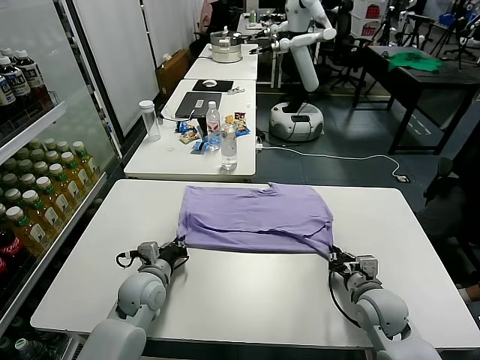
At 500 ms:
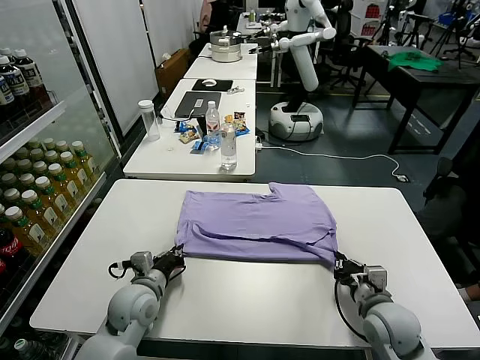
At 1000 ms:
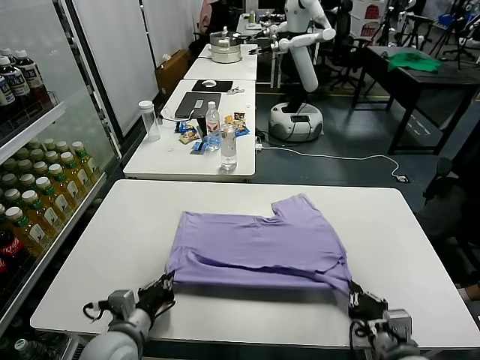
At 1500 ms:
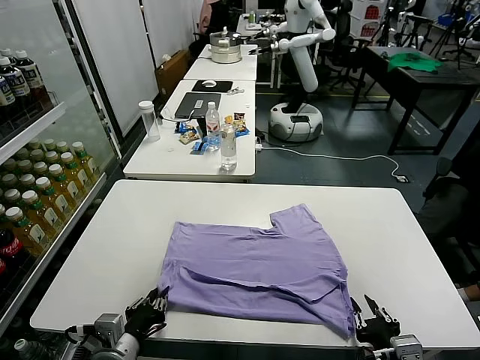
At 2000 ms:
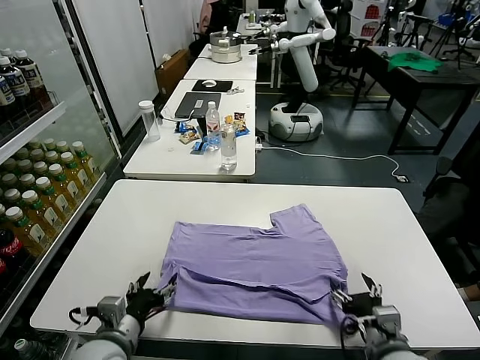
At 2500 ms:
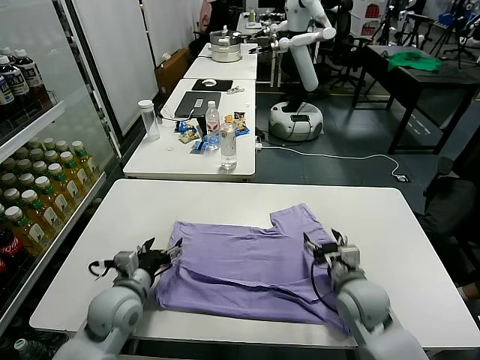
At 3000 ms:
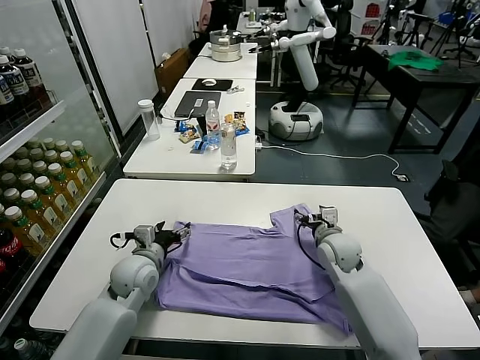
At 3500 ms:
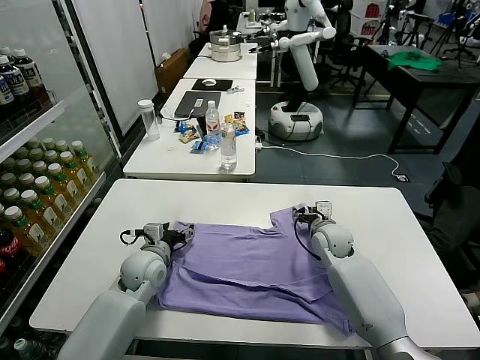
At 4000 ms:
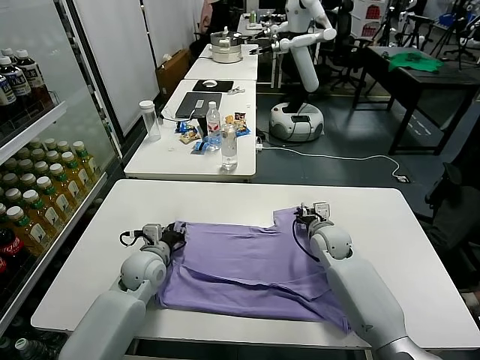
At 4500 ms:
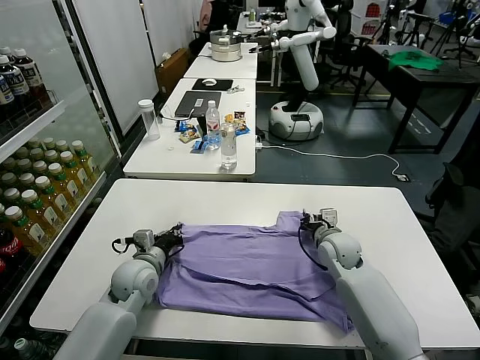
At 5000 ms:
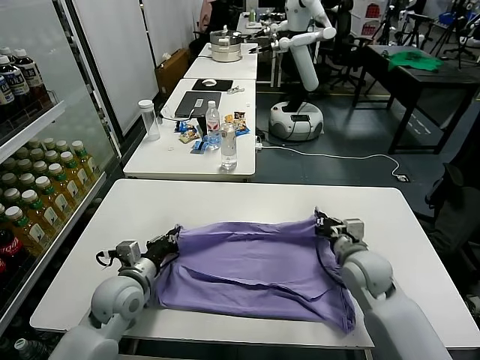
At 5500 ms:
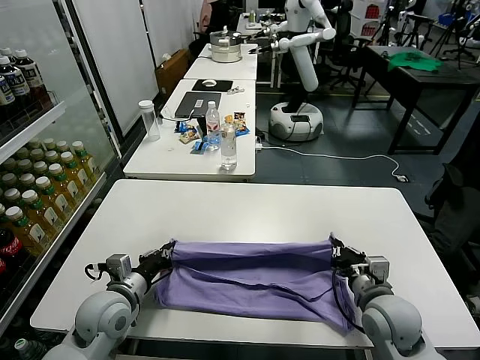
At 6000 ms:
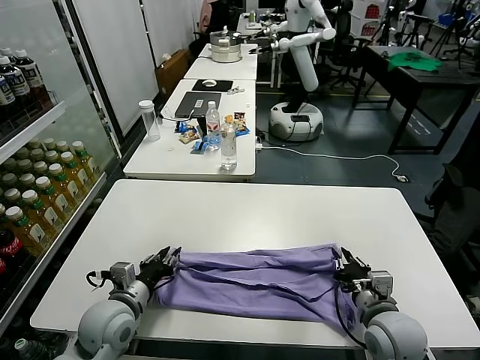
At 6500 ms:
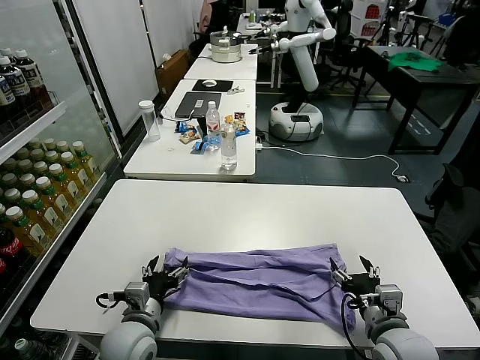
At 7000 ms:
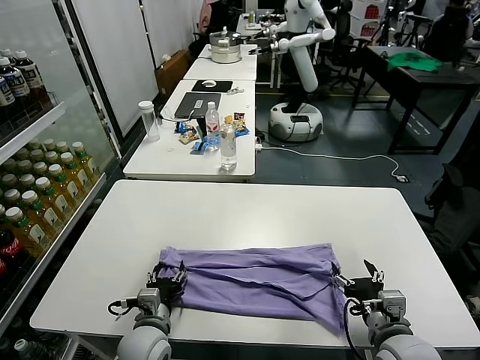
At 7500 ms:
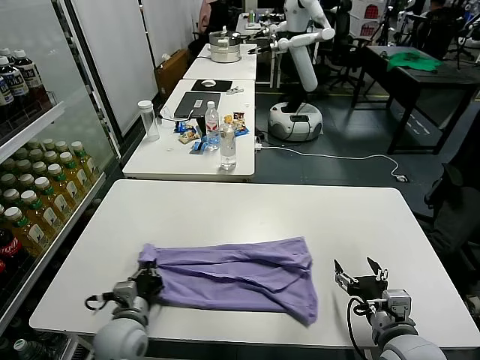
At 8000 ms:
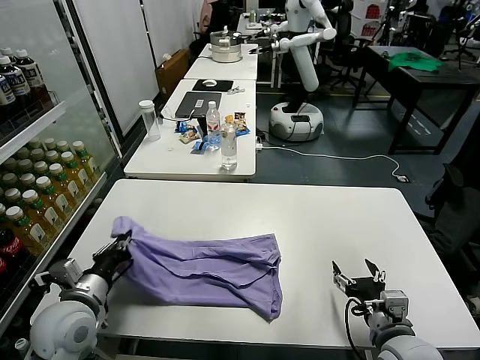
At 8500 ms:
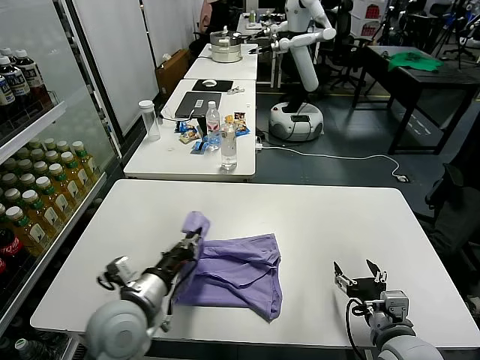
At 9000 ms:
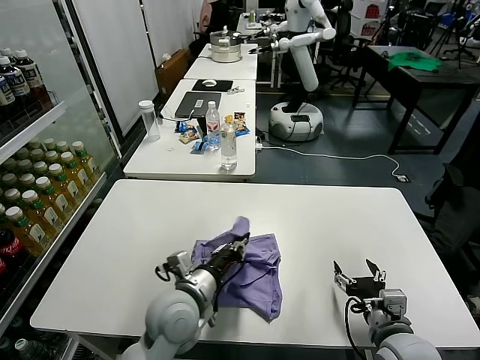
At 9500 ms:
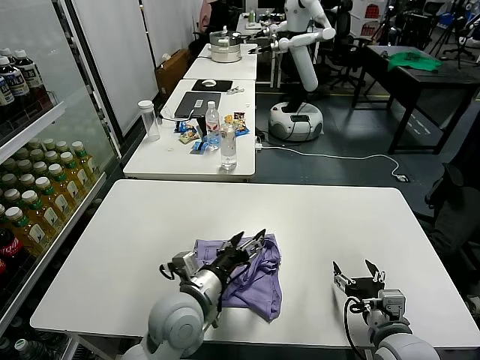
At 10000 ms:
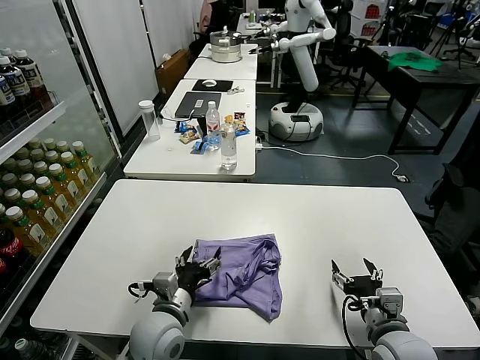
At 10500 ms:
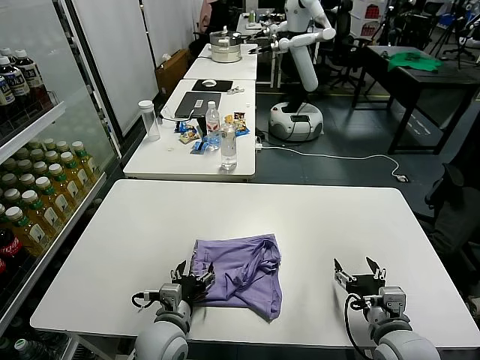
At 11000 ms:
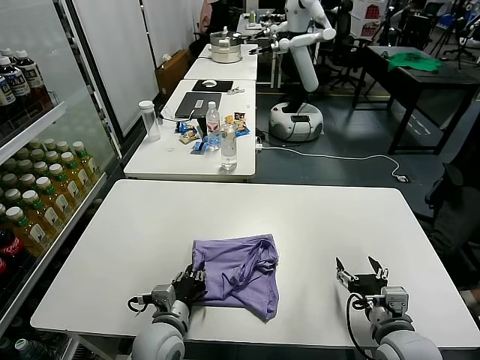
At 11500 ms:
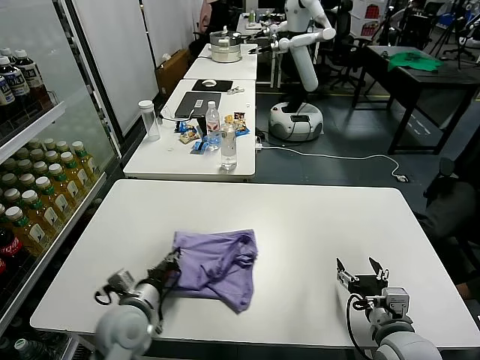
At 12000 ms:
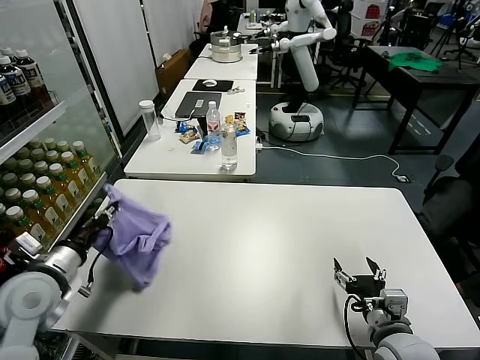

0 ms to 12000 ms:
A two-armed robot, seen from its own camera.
Task of the whole recording: fold and organize the clothes.
Step, 2000 ms to 4000 ms: use both grippers simultaneously to clamp the upper edge of the clothing fabric.
Step, 4500 ms to 6000 ms: use both grippers to drag the upper edge of the fabric backward and fold it over the lower edge.
Step, 6500 ms to 7500 ms: use the left gripper to clamp the left edge of the fabric.
Step, 8000 ms to 9000 ms: use the left gripper to drag the left edge of the fabric to the left and folds it over the right edge.
0 ms to 2000 ms: The left gripper heads backward, covering approximately 15 cm, and opens. The right gripper heads backward, covering roughly 10 cm, and opens its fingers.
2000 ms to 4000 ms: Both grippers travel together forward, roughly 25 cm. The left gripper closes its fingers. Meanwhile the right gripper closes.
4000 ms to 6000 ms: The right gripper goes roughly 25 cm backward, while the left gripper goes approximately 15 cm backward, and closes and opens again.
6000 ms to 8000 ms: The left gripper goes about 5 cm to the left, and closes its fingers; the right gripper opens up.
8000 ms to 10000 ms: The left gripper shifts approximately 15 cm to the right, and opens its fingers.
10000 ms to 12000 ms: The left gripper moves to the left and upward, approximately 25 cm, and closes its fingers.

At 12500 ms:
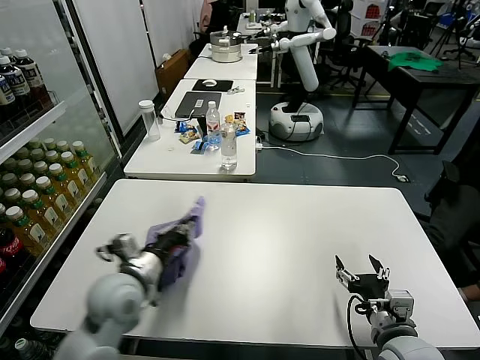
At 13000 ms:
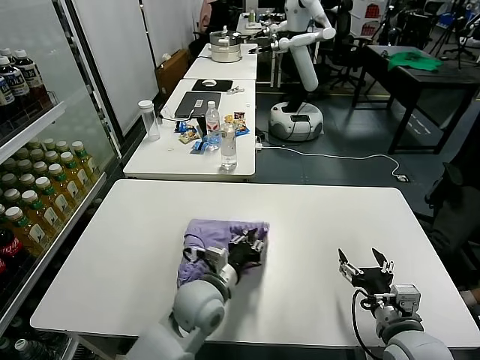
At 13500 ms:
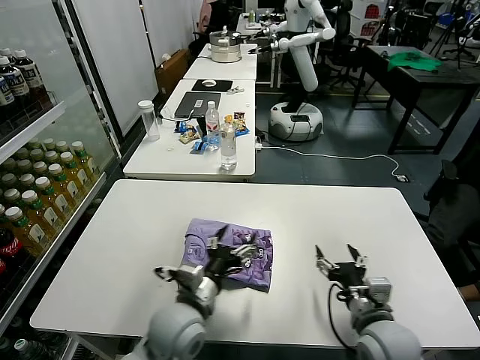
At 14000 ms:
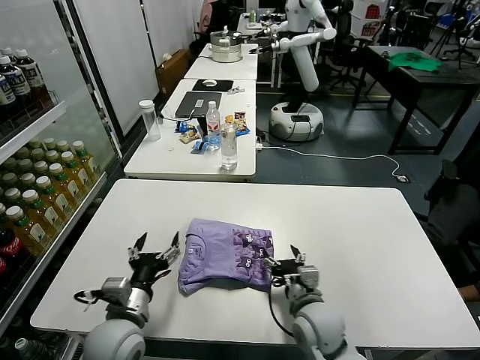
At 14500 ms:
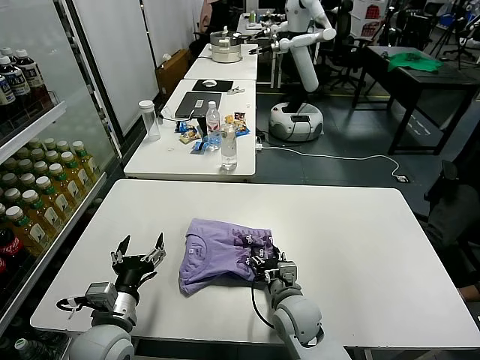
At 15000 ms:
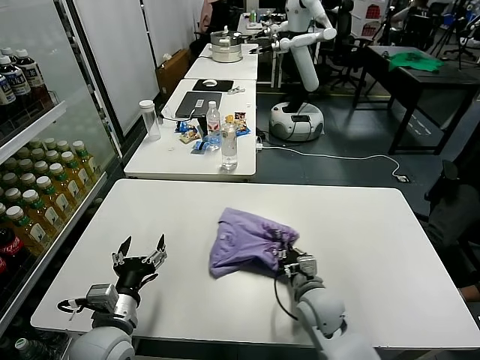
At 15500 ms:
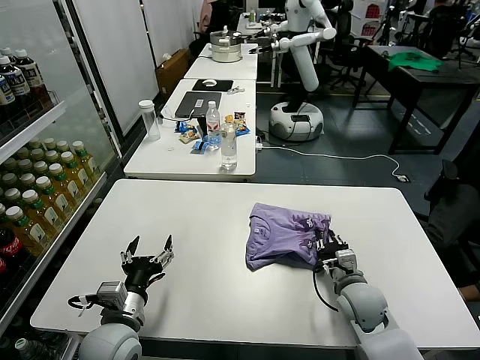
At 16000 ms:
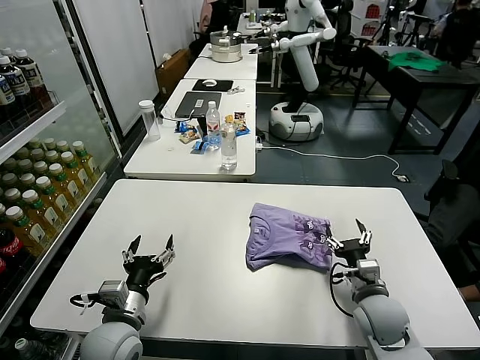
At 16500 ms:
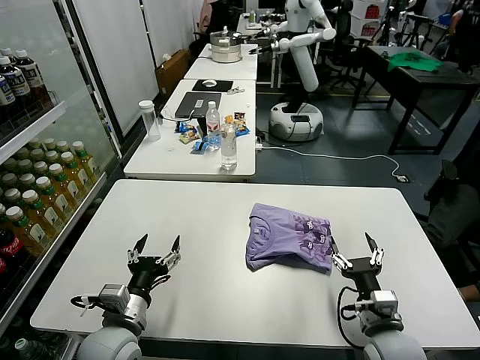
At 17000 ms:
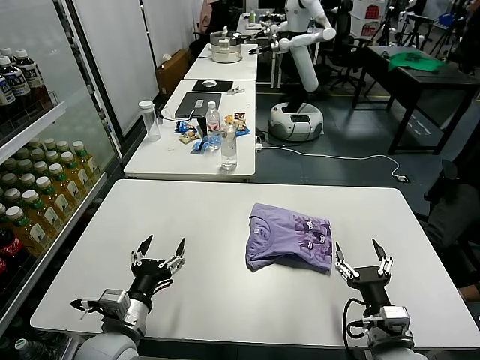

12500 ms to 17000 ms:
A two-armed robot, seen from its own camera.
Task of the whole recording: fold and organize the clothes.
Step, 14000 ms to 15500 ms: Drag the clothes to the center of the table.
12500 ms to 14500 ms: The right gripper shifts some 20 cm to the left, forward and downward. The left gripper goes about 10 cm backward, reaches roughly 15 cm to the right, then returns, and opens its fingers.
14500 ms to 17000 ms: The right gripper is displaced to the right and backward by approximately 20 cm, and closes, then reopens.

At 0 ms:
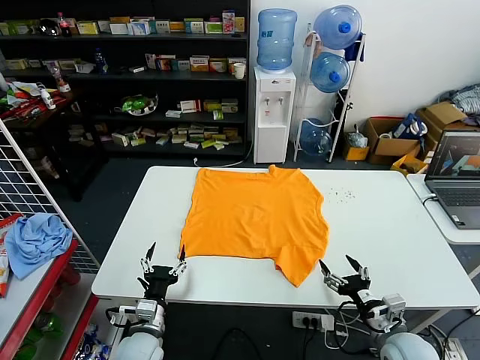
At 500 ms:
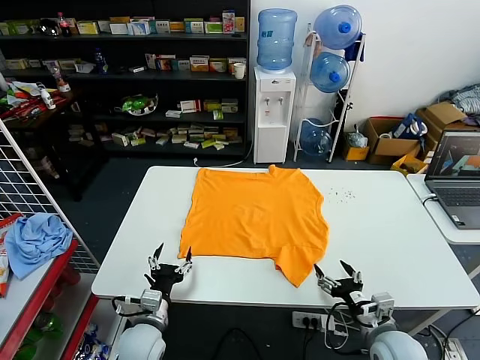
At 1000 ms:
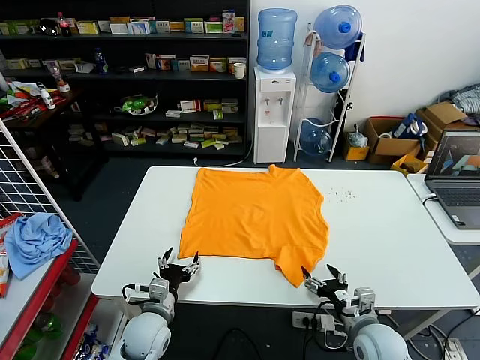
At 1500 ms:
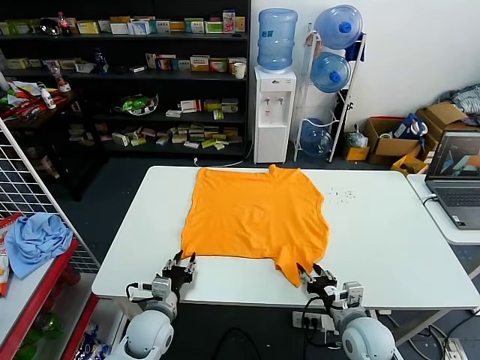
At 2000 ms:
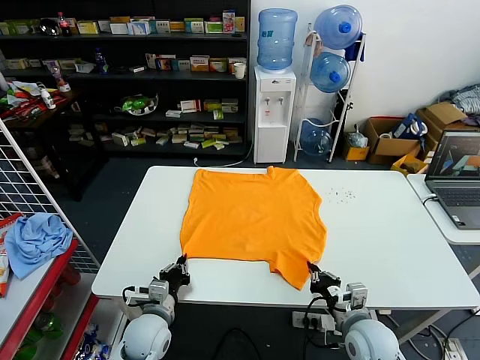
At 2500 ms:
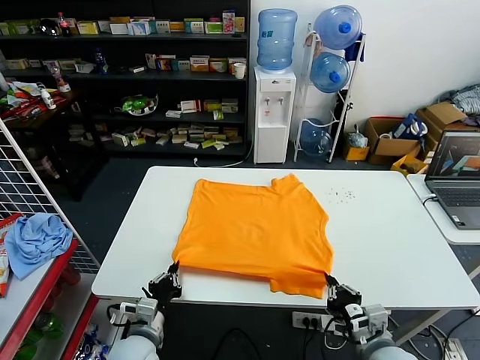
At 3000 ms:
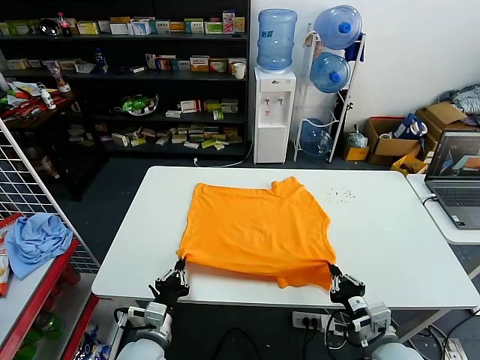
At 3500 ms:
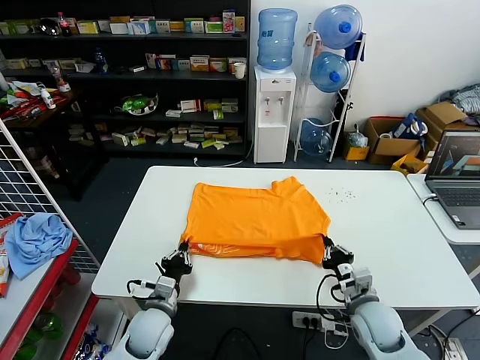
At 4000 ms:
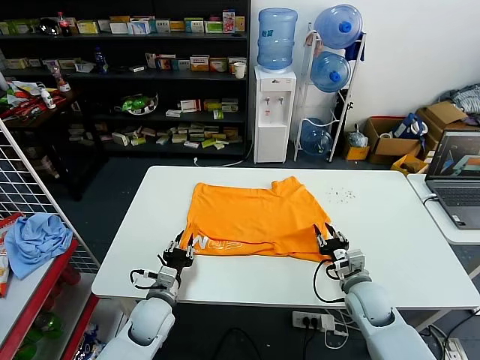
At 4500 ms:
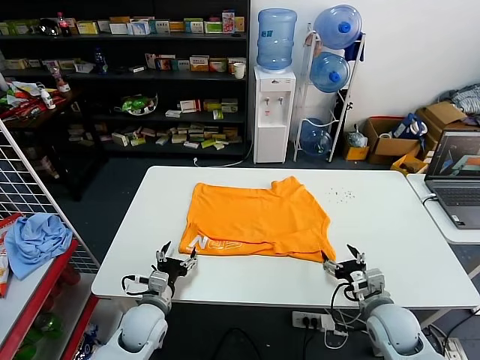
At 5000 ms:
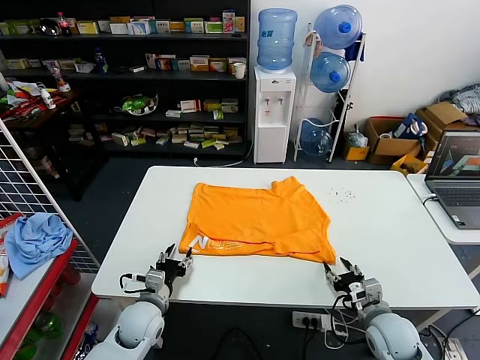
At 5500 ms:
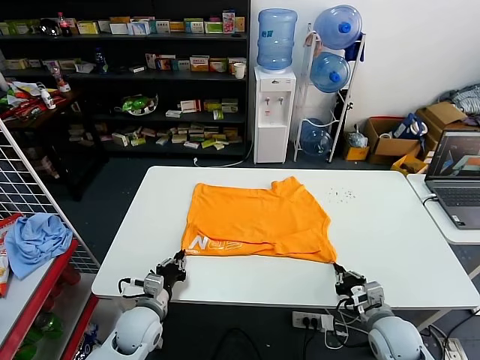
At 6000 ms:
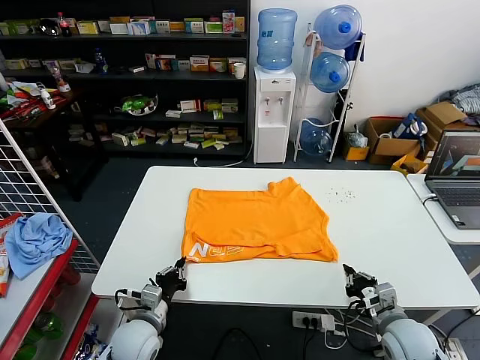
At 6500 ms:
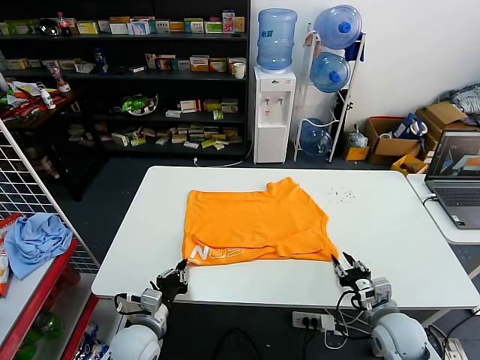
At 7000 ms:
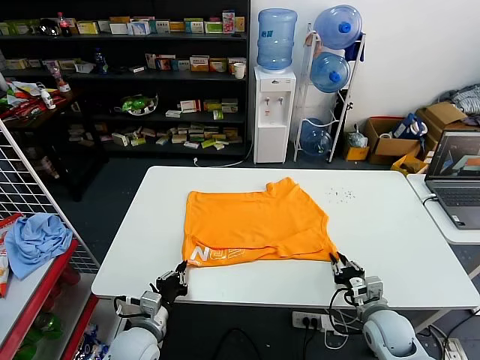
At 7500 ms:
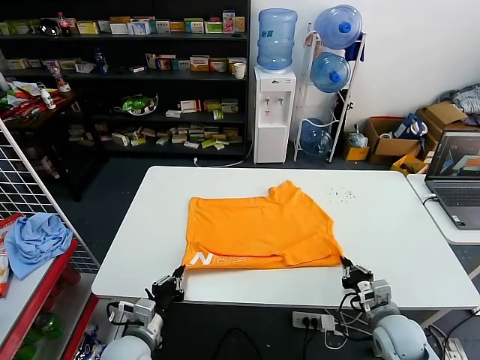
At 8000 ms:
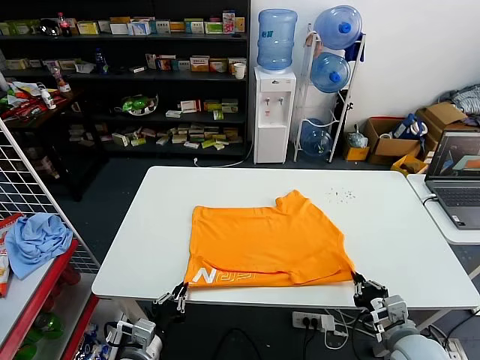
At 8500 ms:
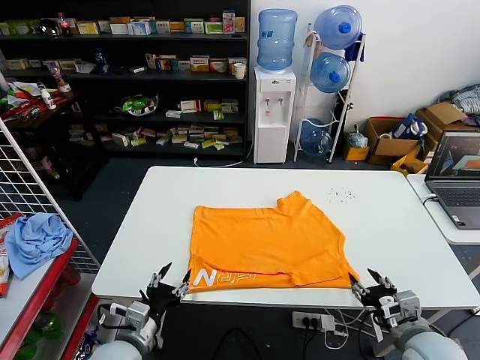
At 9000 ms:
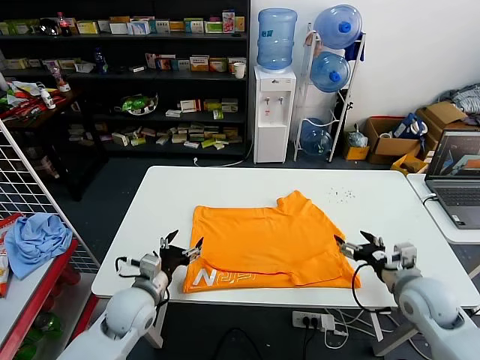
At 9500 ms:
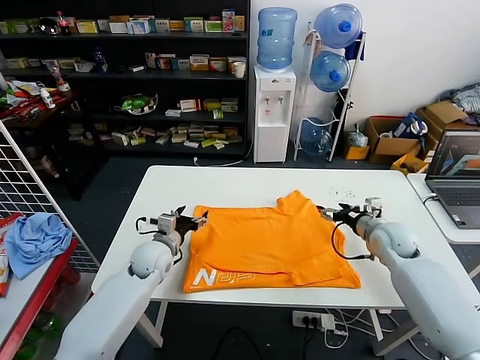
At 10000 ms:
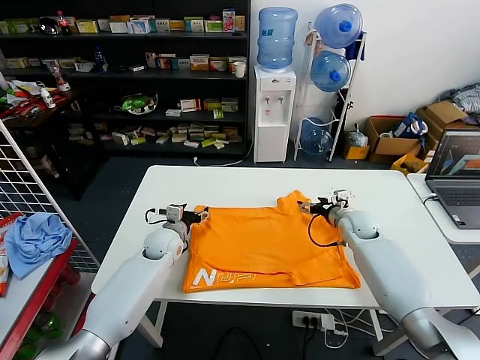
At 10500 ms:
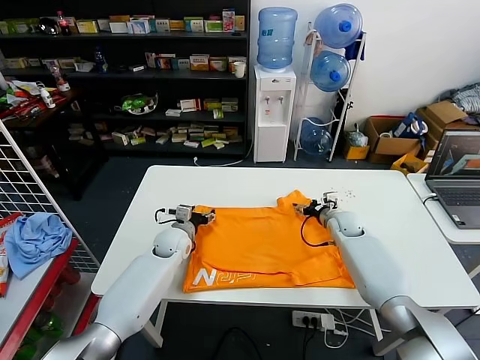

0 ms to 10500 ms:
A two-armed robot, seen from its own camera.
Task of the whole recording: fold and organize the clothes.
Step, 0 ms to 2000 ms: use both grippers simultaneously to clamp the lower edge of the clothing fabric.
Step, 2500 ms to 4000 ms: use both grippers to drag the lower edge of the fabric forward and fold it over the upper edge.
Step, 4500 ms to 8000 ms: Drag the clothes downward with both gripper.
2000 ms to 4000 ms: The right gripper goes roughly 10 cm forward, and opens up; the left gripper opens up.
4000 ms to 6500 ms: Both grippers travel together backward, some 5 cm. The right gripper closes and opens again; the left gripper closes.
6500 ms to 8500 ms: The left gripper changes place by some 5 cm, and opens its fingers. The right gripper is displaced upward and backward by approximately 10 cm, and closes, then opens again.
8500 ms to 10500 ms: Both grippers travel together forward, some 30 cm.
